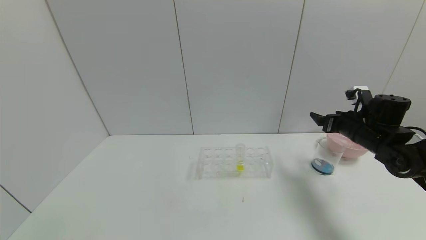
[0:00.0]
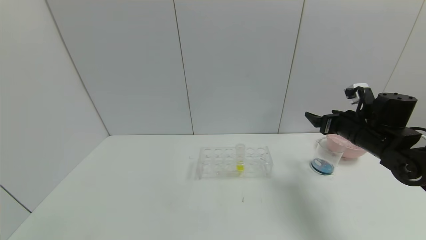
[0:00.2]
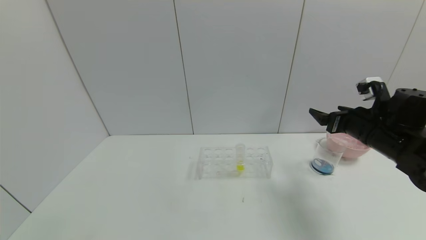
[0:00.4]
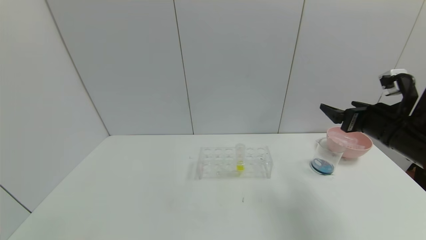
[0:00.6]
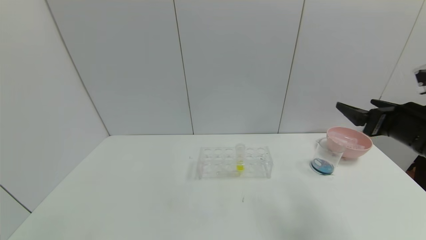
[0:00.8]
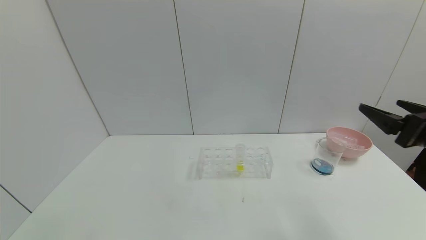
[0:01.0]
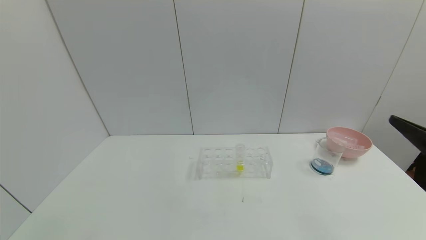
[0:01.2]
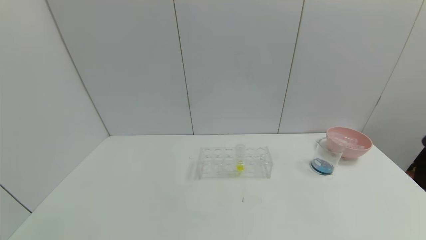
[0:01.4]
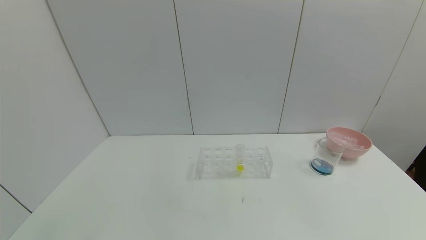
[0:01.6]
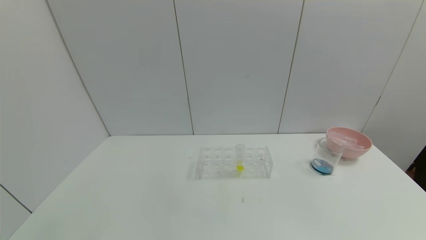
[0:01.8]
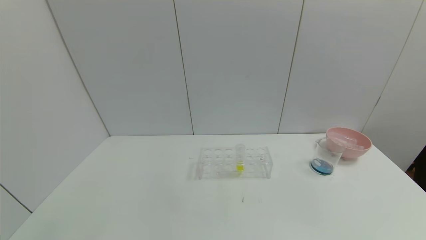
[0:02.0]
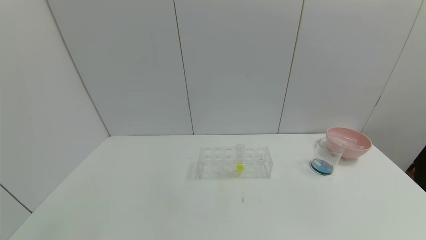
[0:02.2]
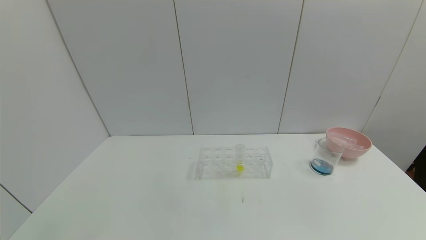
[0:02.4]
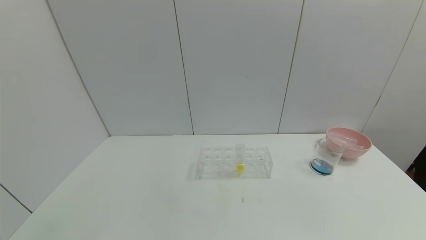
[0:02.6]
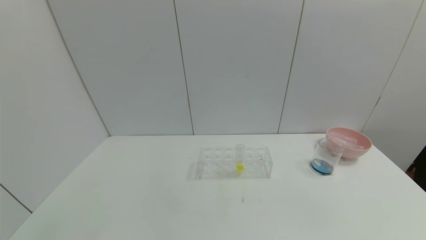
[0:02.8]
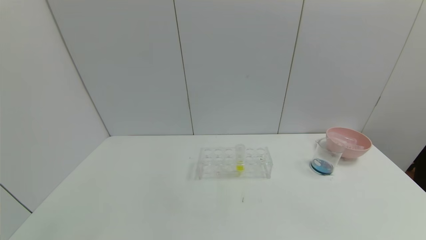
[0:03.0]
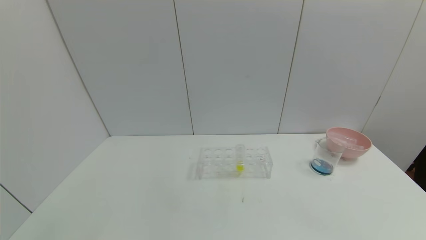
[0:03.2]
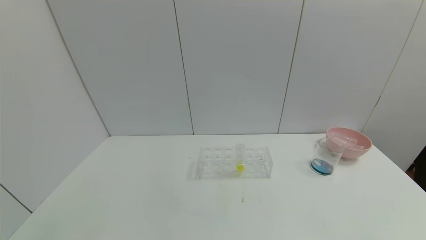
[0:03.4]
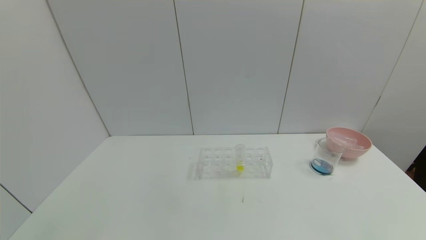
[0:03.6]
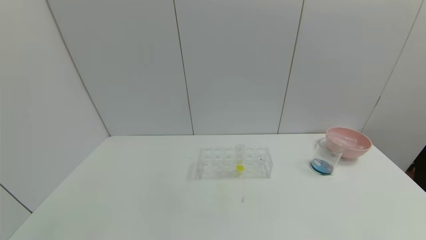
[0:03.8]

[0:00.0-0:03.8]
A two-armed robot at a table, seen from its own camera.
Task of the whole recording: pick up the test tube with red pigment and the test tube with blue pigment by grippers and pour them into the container.
0:00.0 to 0:01.2: The right gripper heads backward, covering about 25 cm.
0:01.2 to 0:02.6: The right gripper moves backward, approximately 20 cm.
